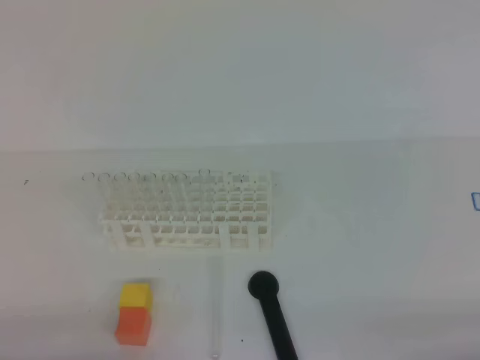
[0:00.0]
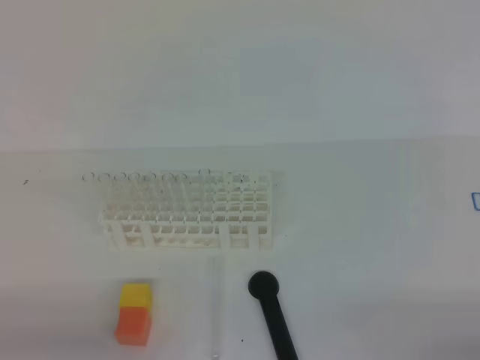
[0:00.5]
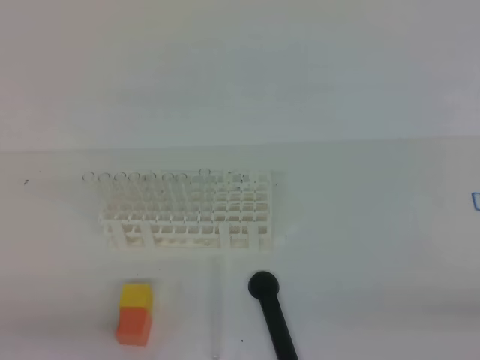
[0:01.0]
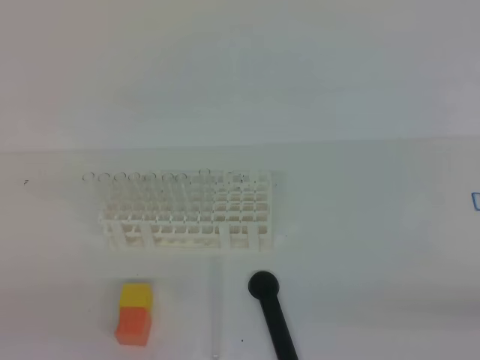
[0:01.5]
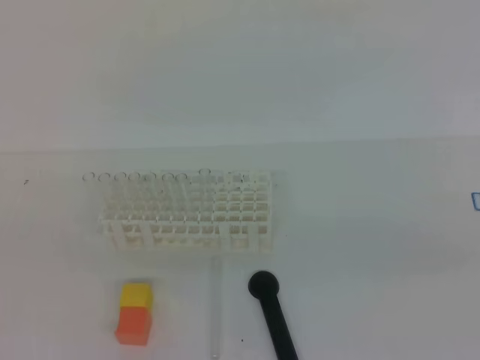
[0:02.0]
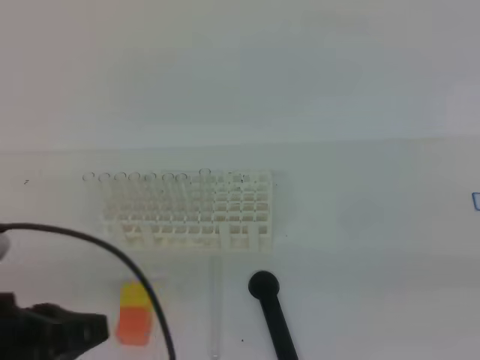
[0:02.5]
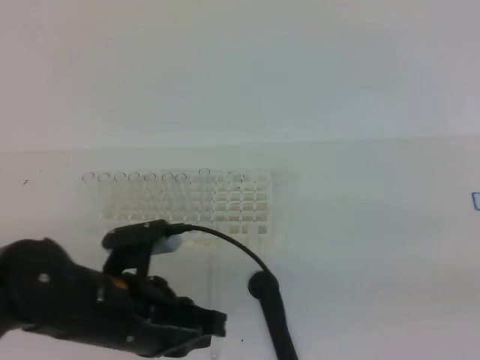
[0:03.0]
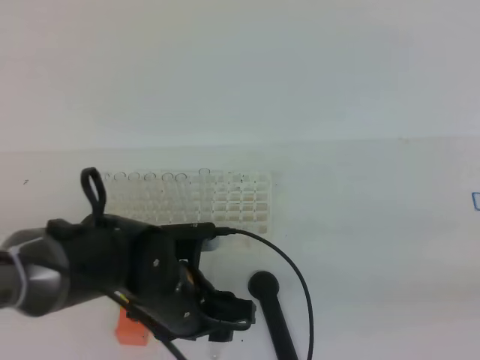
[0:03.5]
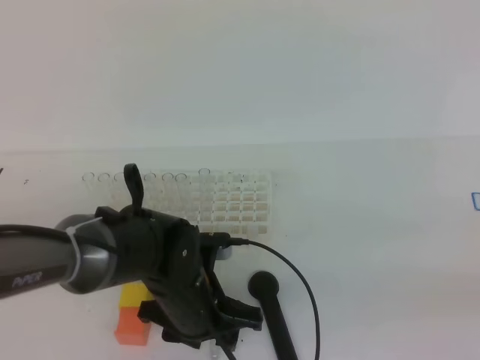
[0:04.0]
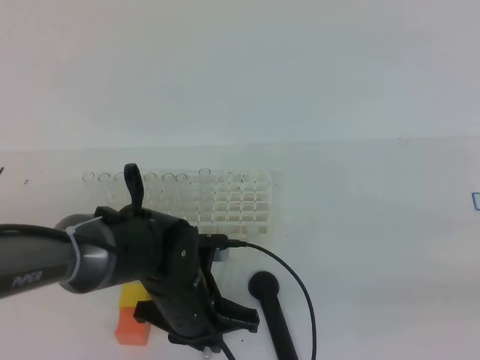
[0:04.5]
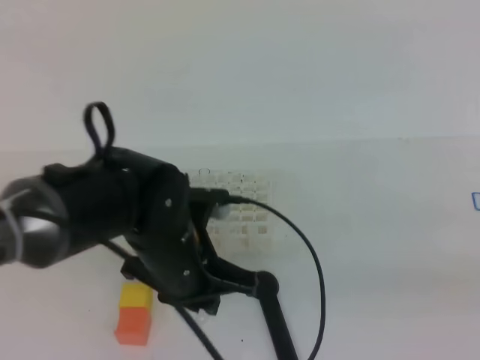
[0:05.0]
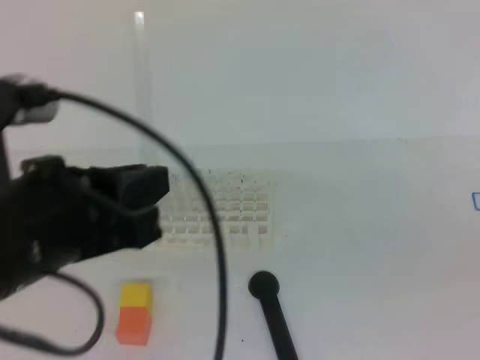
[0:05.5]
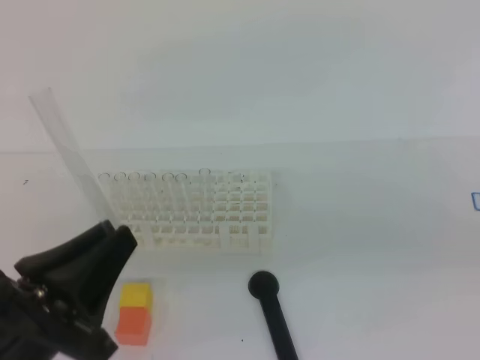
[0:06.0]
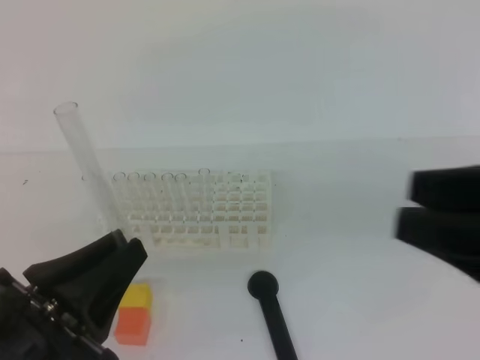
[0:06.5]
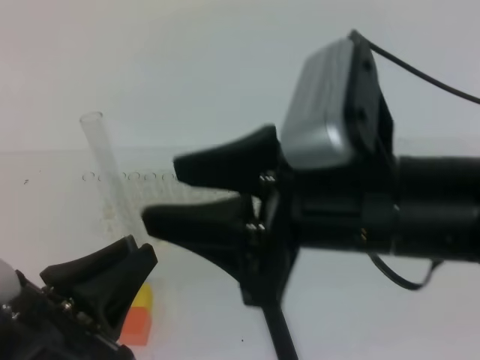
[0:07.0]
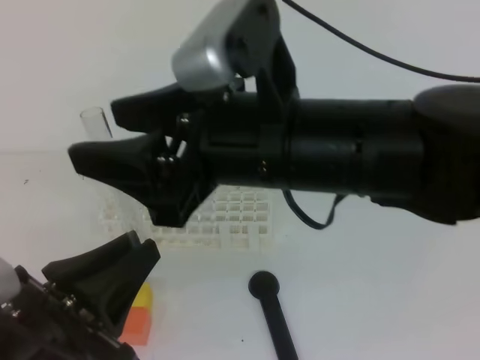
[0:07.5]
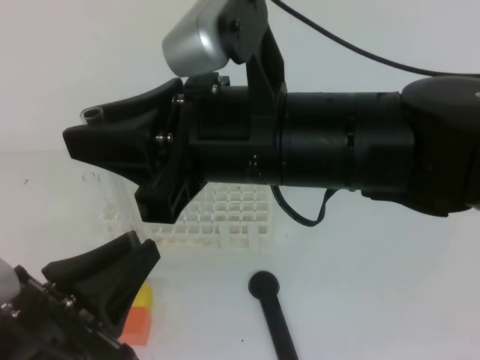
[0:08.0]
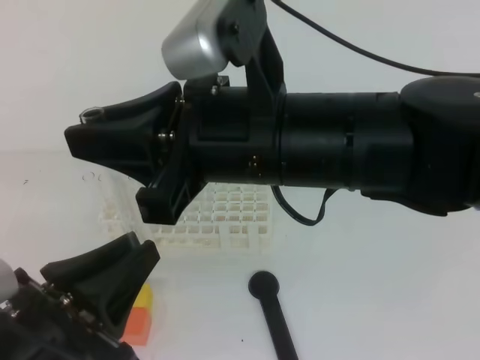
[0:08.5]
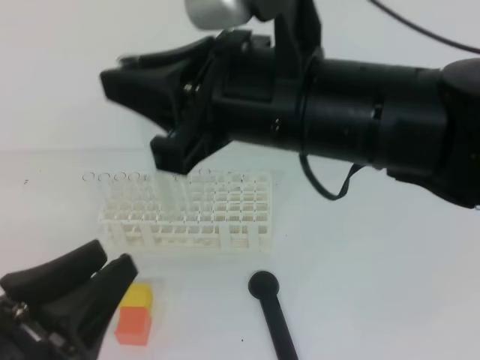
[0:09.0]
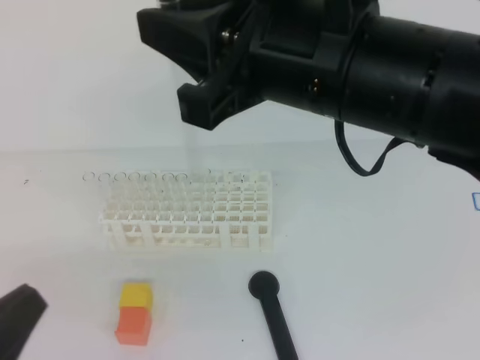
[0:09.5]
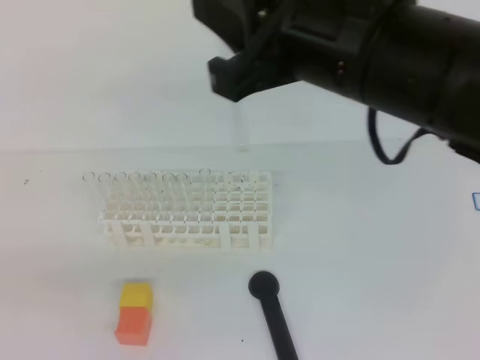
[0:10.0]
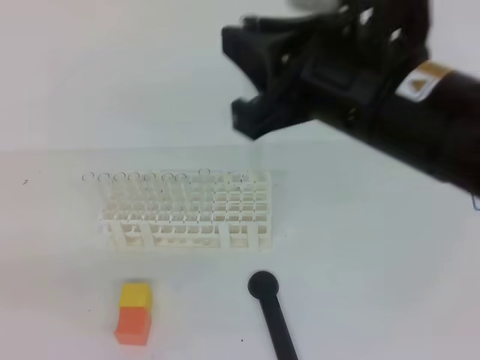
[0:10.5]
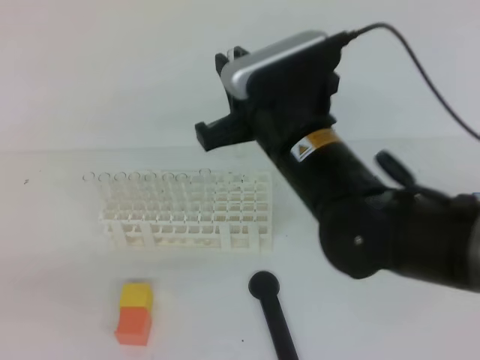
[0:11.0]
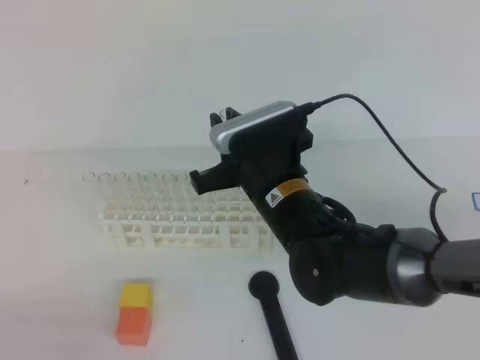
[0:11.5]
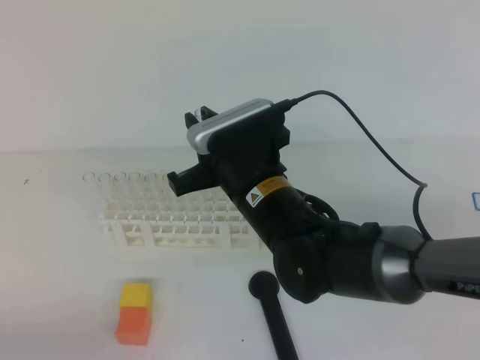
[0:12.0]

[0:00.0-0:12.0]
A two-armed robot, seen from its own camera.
0:00.0 to 0:02.0: Both grippers travel together upward, about 15 cm.
0:02.0 to 0:04.0: The left gripper travels forward, to the right and downward by some 35 cm, and opens up.
0:04.0 to 0:06.0: The left gripper heads upward, backward and to the left, covering some 25 cm, and closes. The right gripper goes about 5 cm to the left.
0:06.0 to 0:08.0: The right gripper heads to the left and forward, covering approximately 25 cm, and opens, then closes again.
0:08.0 to 0:10.0: The left gripper travels to the left and backward by roughly 10 cm, and opens, then closes once more, while the right gripper heads to the right, covering about 5 cm.
0:10.0 to 0:12.0: The right gripper moves downward and forward, about 20 cm, while the left gripper moves downward, some 10 cm.

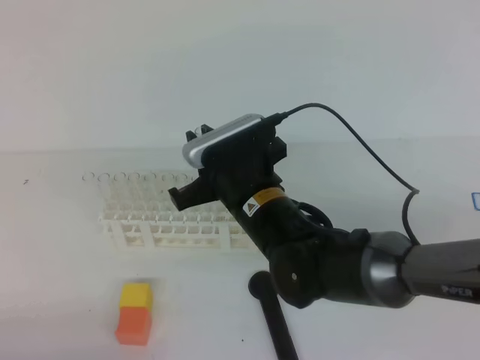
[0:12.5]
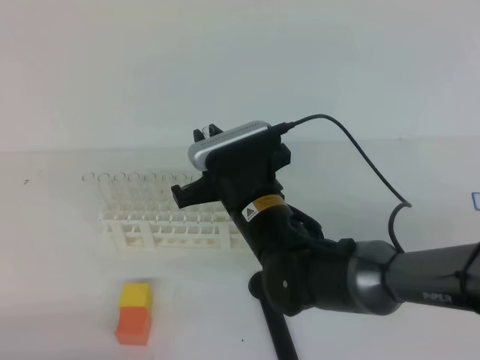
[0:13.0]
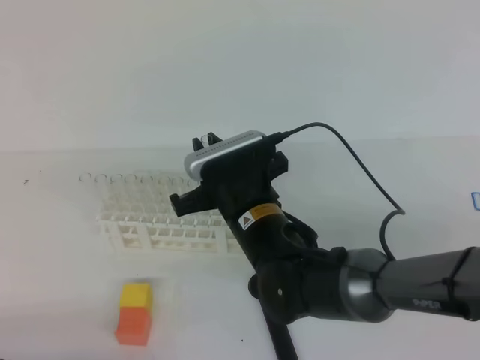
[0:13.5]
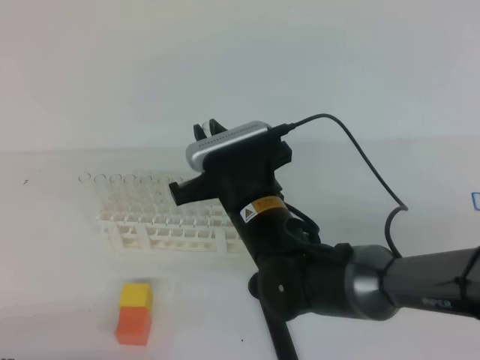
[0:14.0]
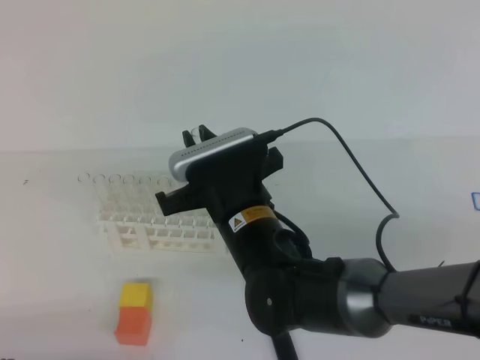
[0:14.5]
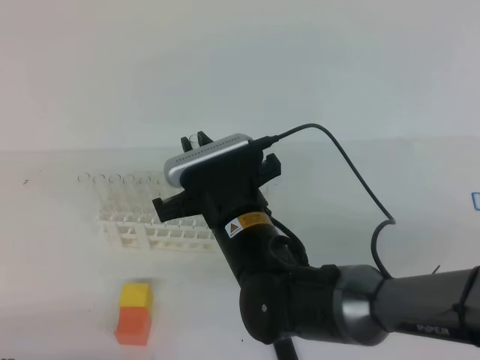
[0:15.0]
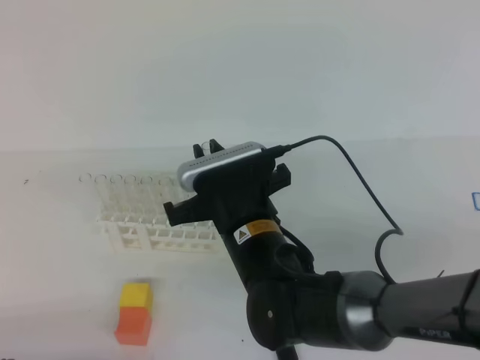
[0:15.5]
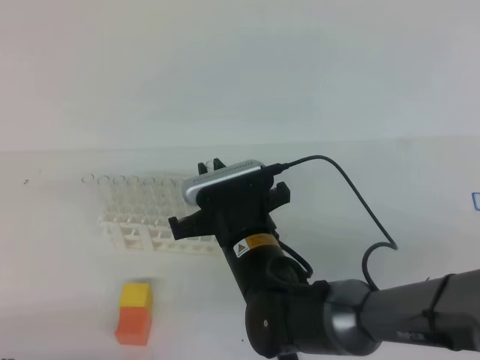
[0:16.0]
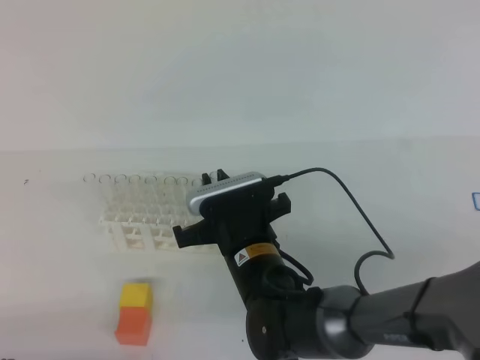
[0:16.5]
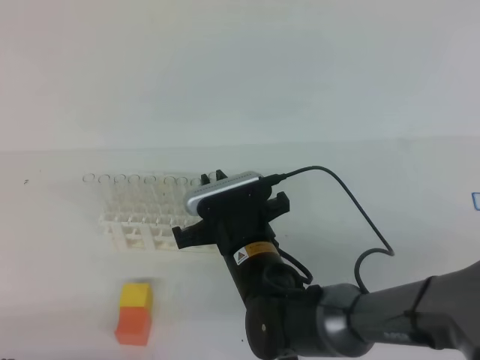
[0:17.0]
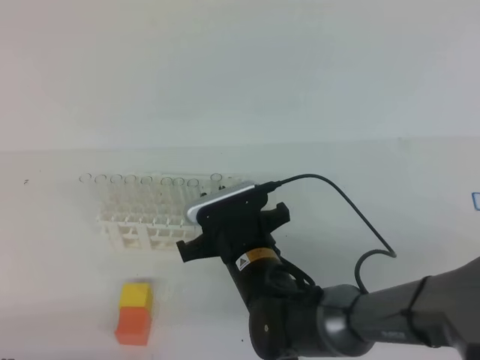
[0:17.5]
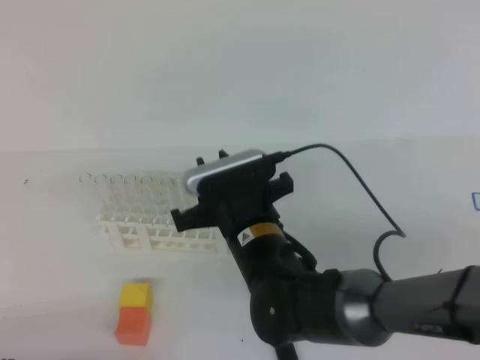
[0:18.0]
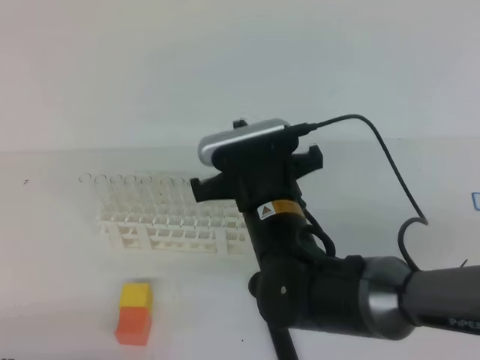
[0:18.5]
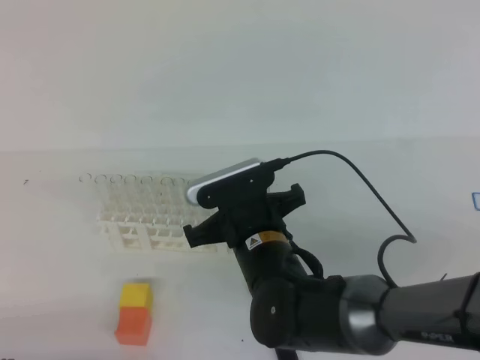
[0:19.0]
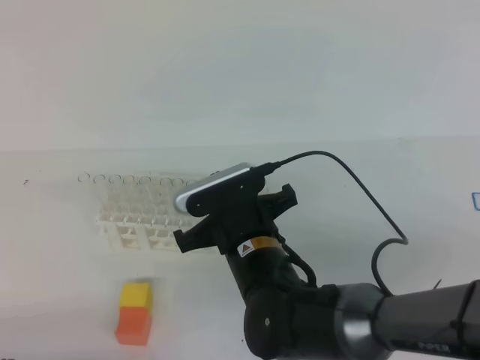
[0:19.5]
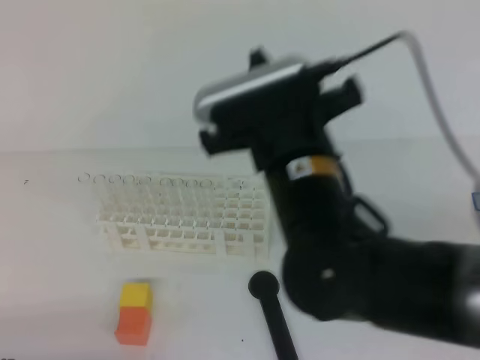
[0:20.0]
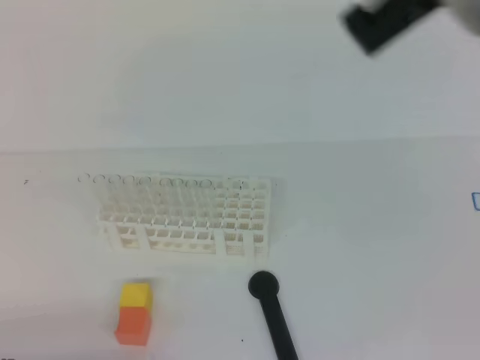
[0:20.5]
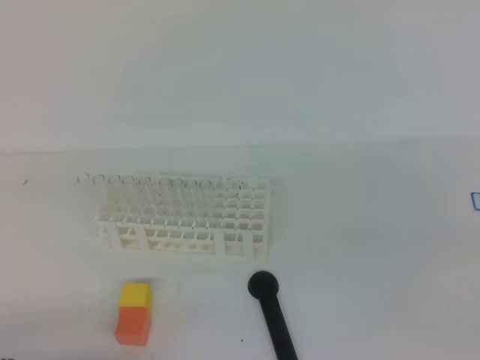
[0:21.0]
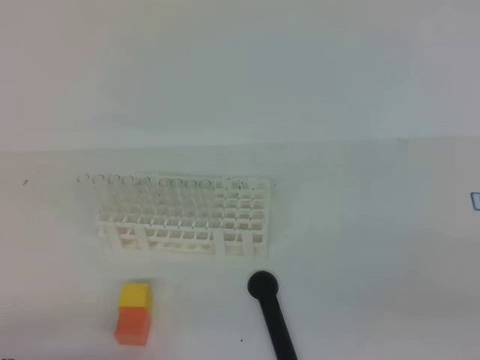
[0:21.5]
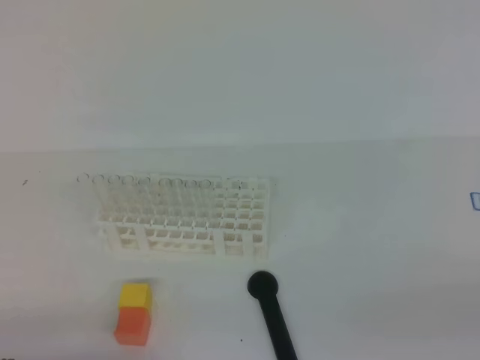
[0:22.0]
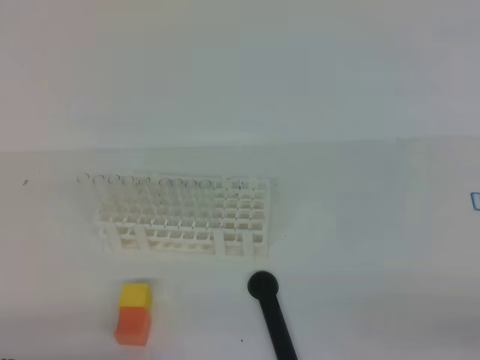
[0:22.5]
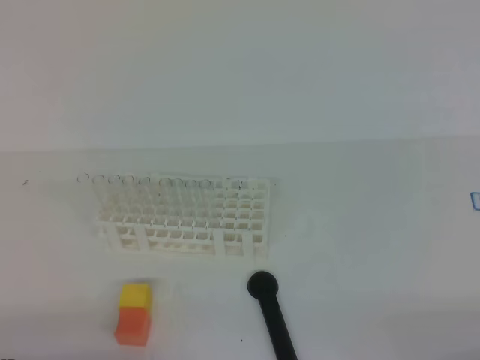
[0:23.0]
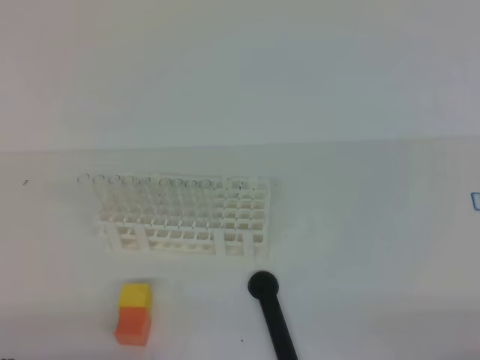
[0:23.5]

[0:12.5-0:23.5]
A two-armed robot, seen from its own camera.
0:12.5 to 0:16.0: There are only small adjustments of the grippers.
0:16.0 to 0:18.0: The grippers move only a little.
0:18.0 to 0:20.0: The right gripper is displaced upward by approximately 15 cm, and closes up.
0:20.0 to 0:21.5: The right gripper goes some 35 cm to the right and backward.
